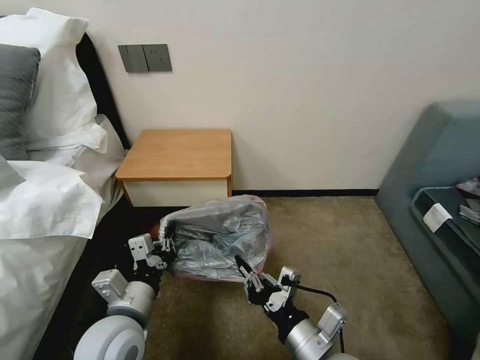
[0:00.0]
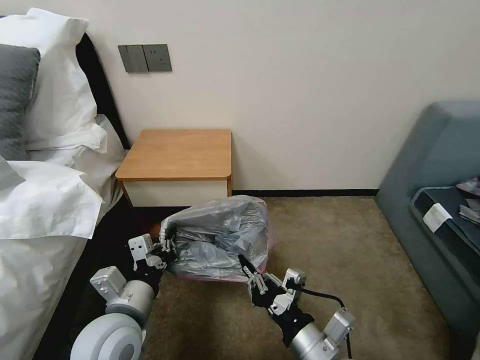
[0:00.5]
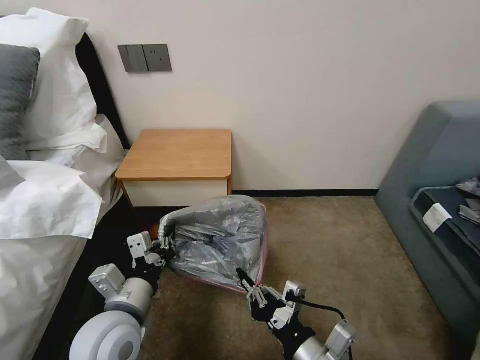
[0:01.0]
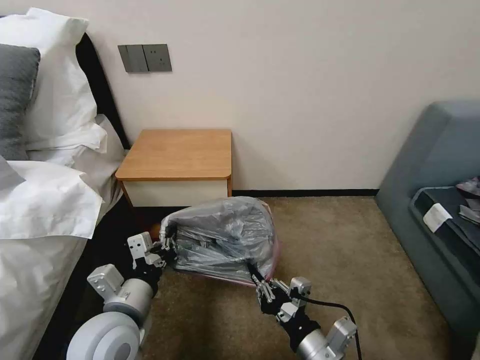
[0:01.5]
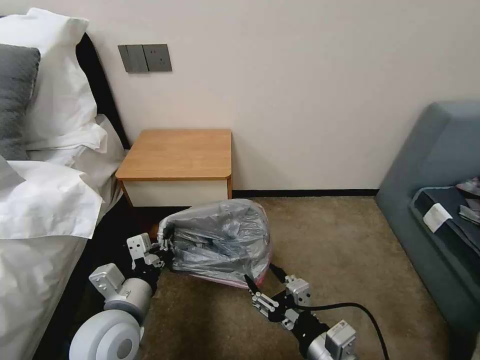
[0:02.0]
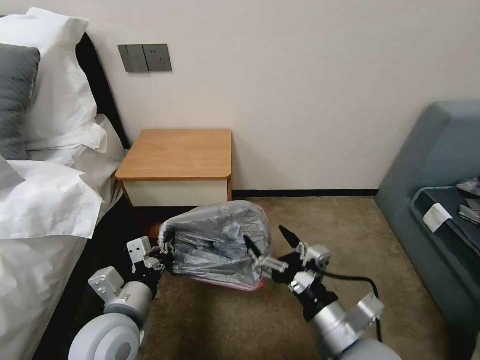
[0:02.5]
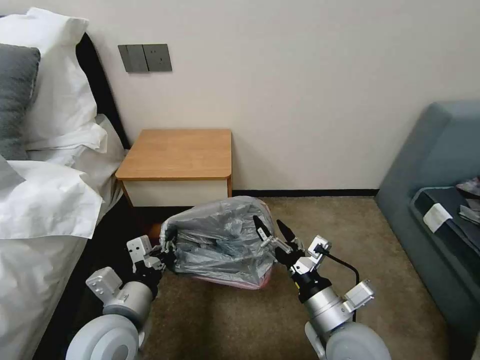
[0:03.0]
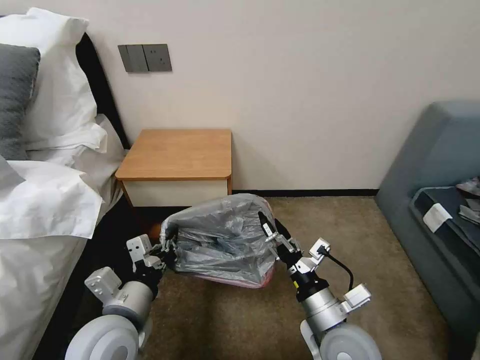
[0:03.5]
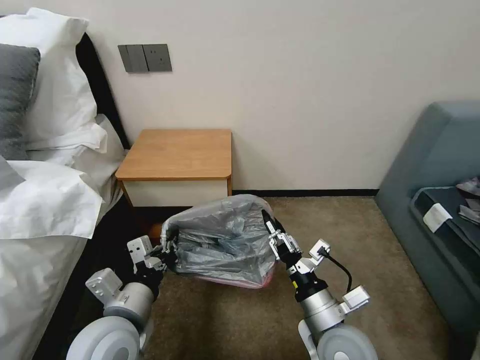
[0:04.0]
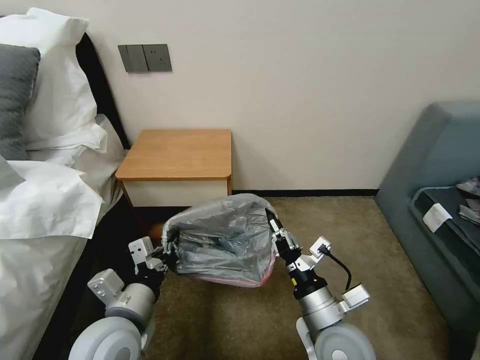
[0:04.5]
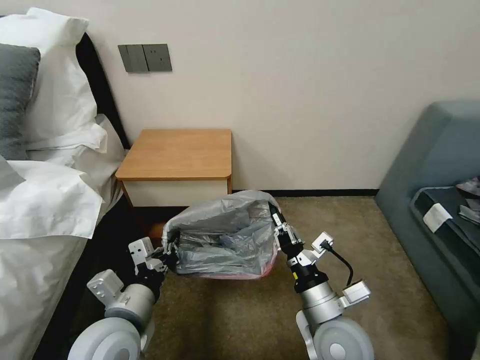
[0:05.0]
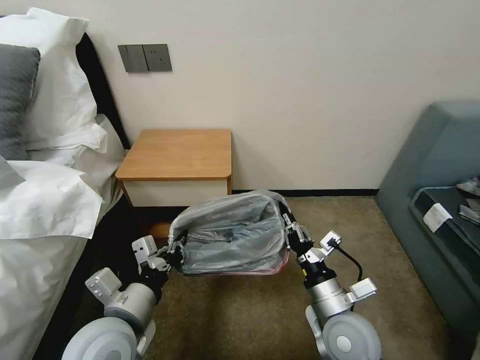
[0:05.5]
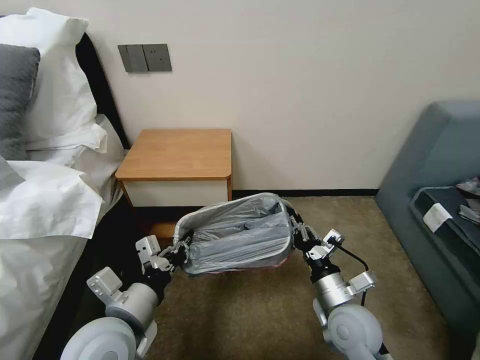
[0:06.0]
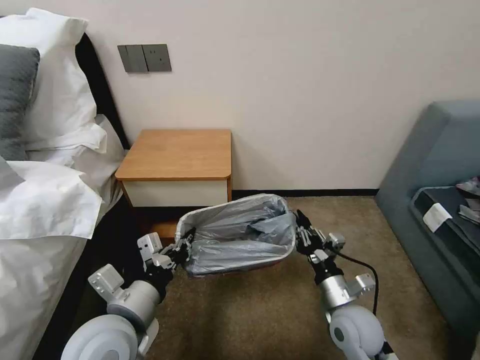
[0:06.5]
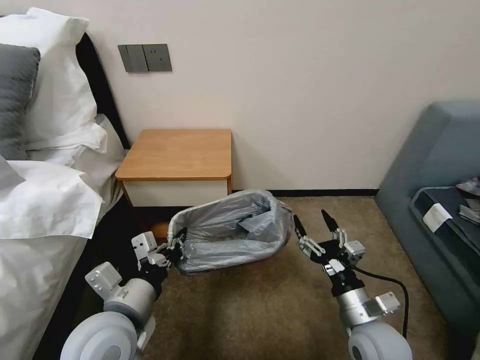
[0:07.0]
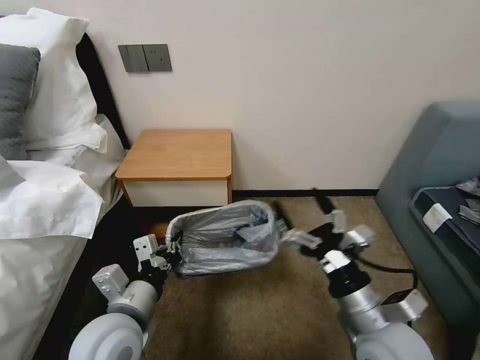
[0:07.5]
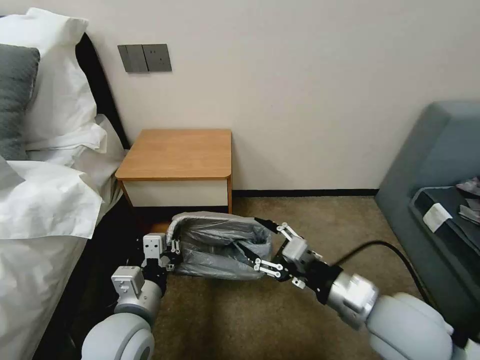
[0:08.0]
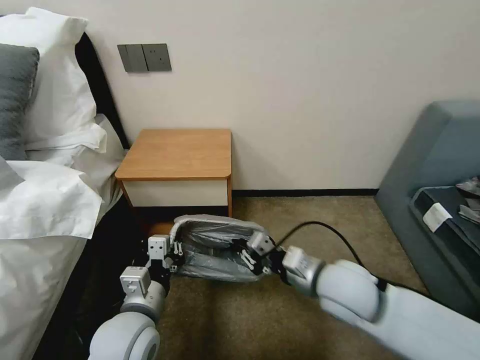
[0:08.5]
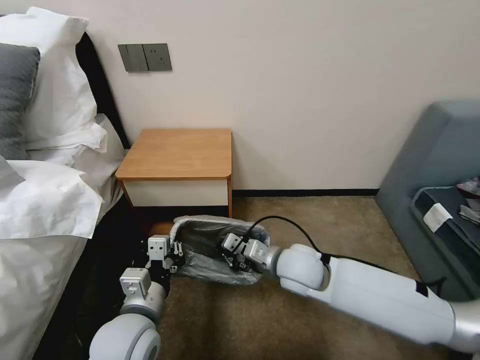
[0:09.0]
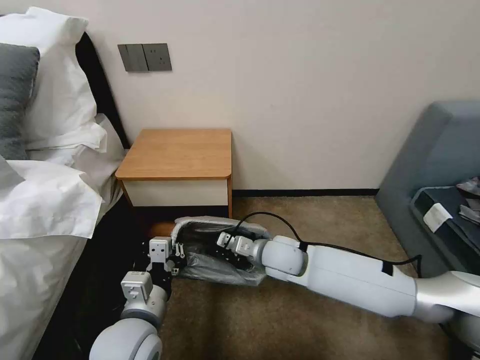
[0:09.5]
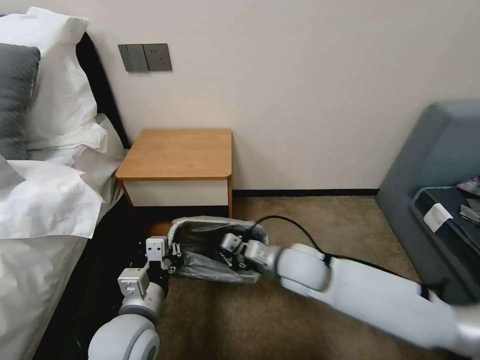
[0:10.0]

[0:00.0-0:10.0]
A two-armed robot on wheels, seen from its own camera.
Task of the whole recording: Pick up the garbage bag from the table and place it over the trash can.
0:00.0 to 0:02.0: The right gripper opens its fingers.
0:02.0 to 0:04.0: The right gripper moves forward, some 5 cm, and opens, then closes again.
0:04.0 to 0:06.0: The right gripper changes place by approximately 10 cm, and closes up.
0:06.0 to 0:08.0: The right gripper heads upward, covering about 15 cm, and opens.
0:08.0 to 0:10.0: The right gripper moves forward, to the left and downward, some 20 cm, and closes its fingers.

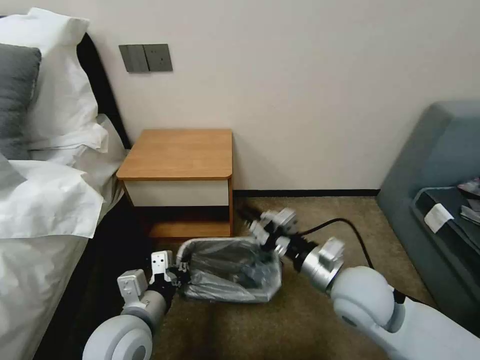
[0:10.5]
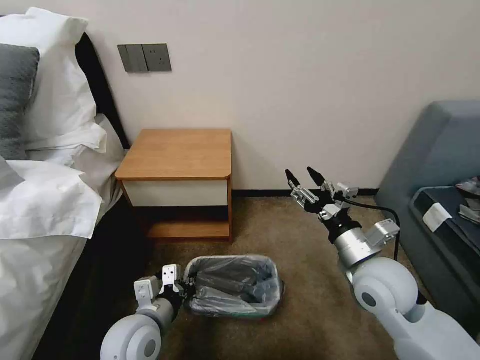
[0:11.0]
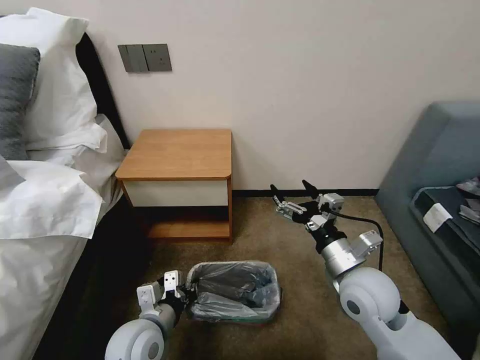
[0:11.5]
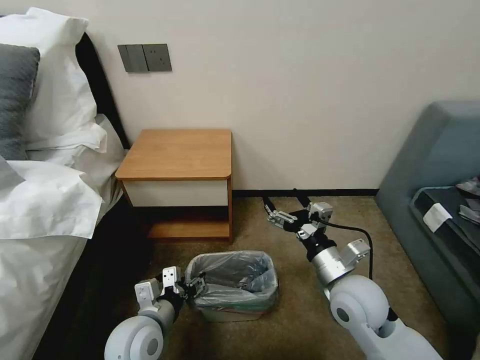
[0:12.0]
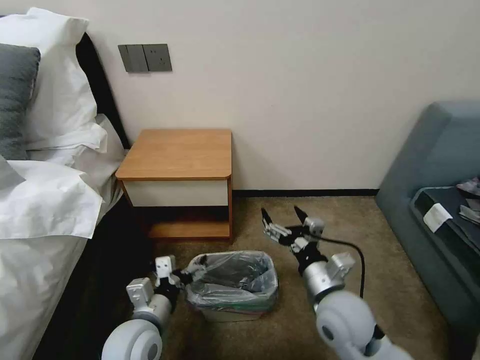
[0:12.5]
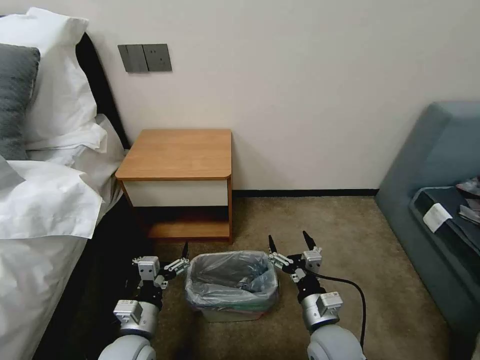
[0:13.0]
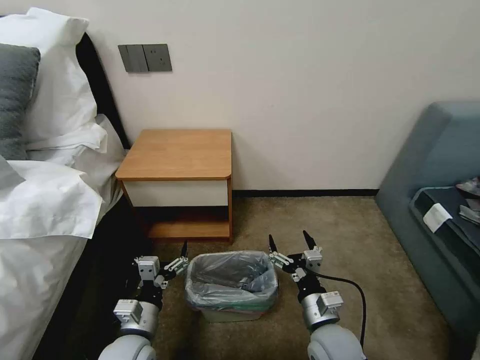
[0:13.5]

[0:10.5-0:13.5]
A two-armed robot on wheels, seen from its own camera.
Task of the whole recording: Pick up the garbage bag from the table and place it over the trash can.
0:10.5 to 0:12.0: The left gripper travels downward by roughly 5 cm, and opens up, while the right gripper opens its fingers.
0:12.0 to 0:13.5: The left gripper changes place by approximately 5 cm. The right gripper moves downward and backward, approximately 10 cm.

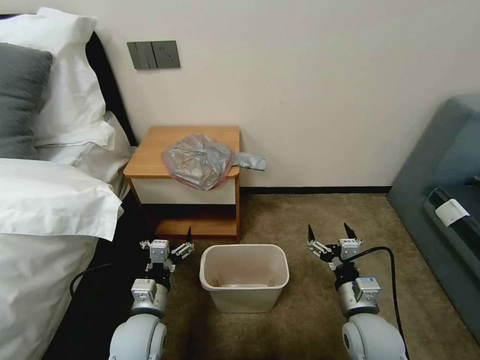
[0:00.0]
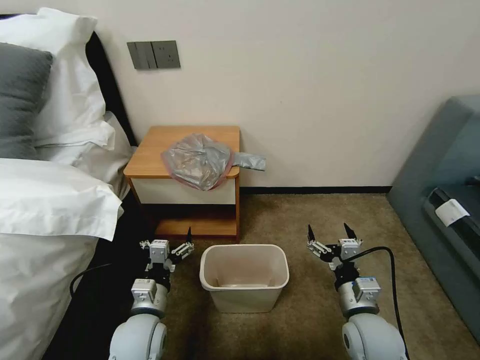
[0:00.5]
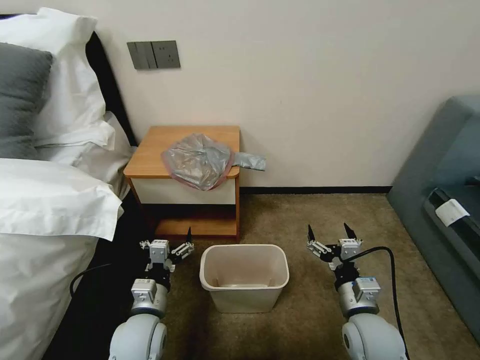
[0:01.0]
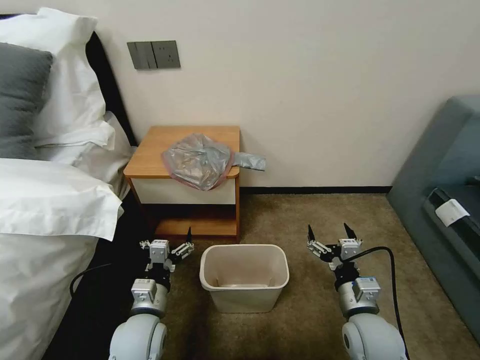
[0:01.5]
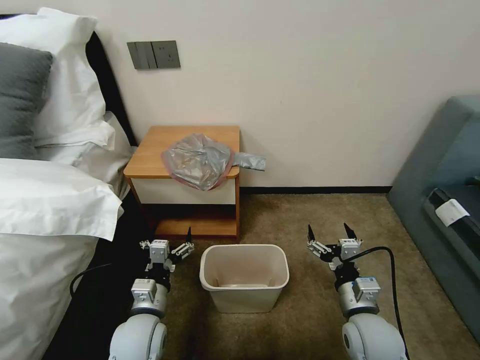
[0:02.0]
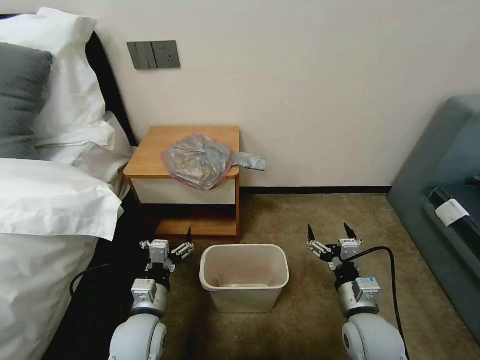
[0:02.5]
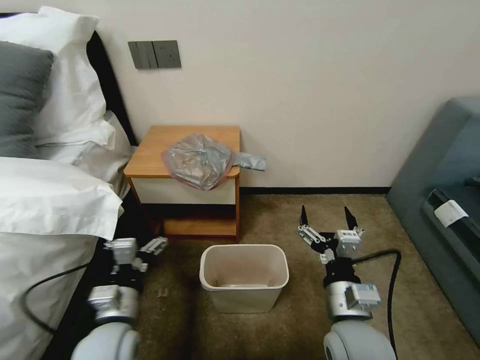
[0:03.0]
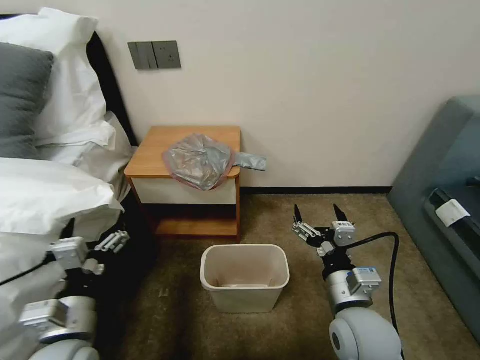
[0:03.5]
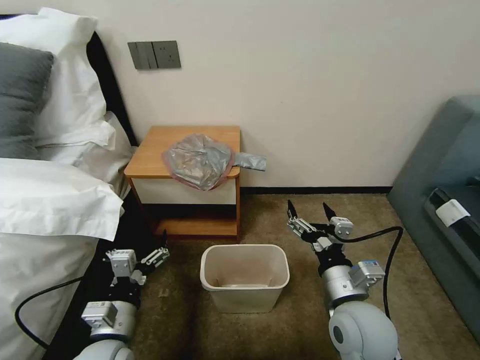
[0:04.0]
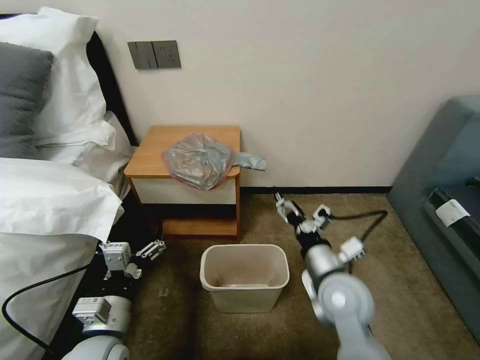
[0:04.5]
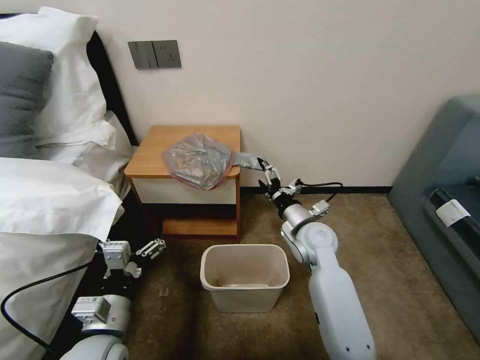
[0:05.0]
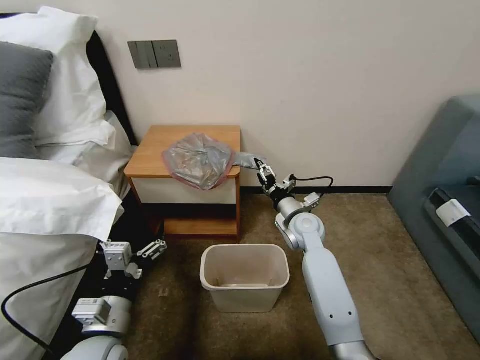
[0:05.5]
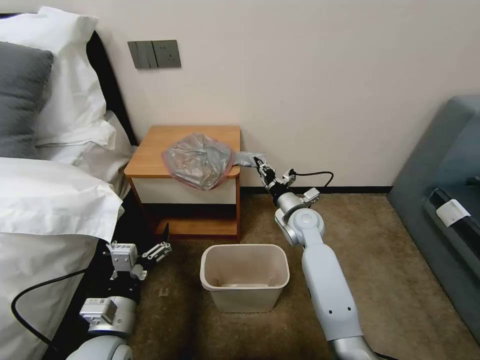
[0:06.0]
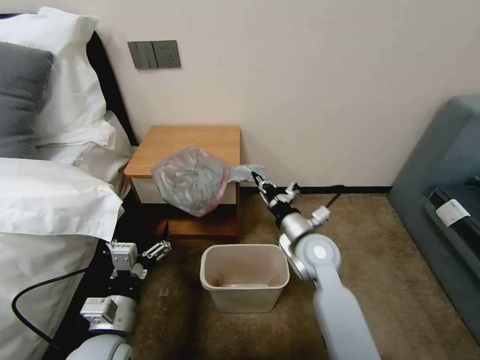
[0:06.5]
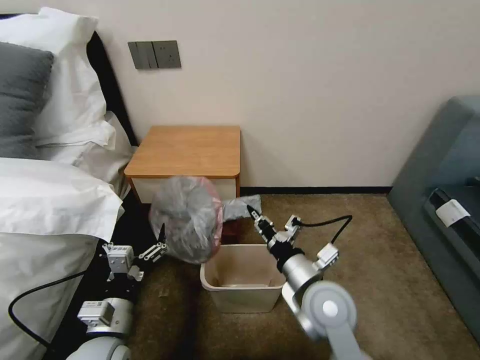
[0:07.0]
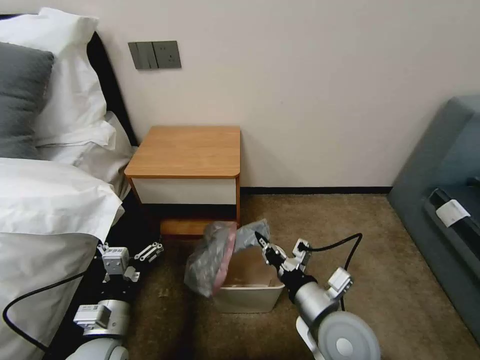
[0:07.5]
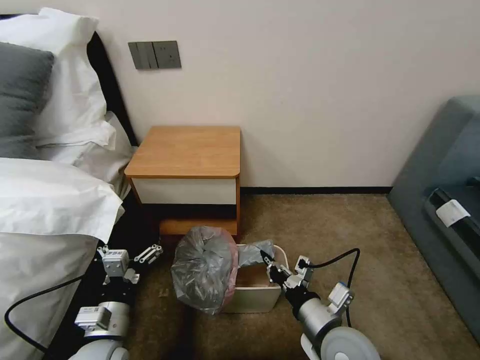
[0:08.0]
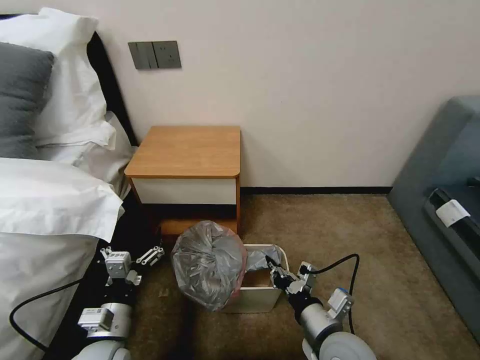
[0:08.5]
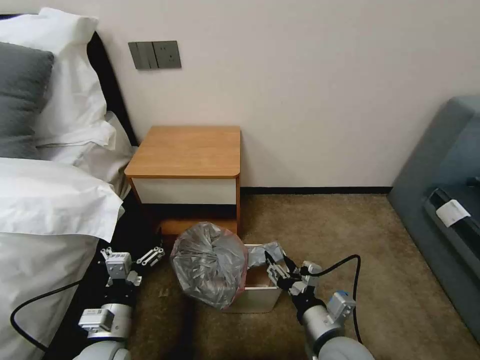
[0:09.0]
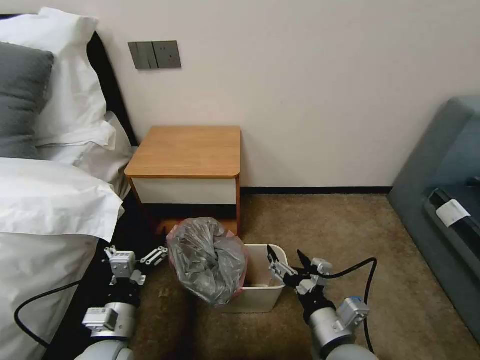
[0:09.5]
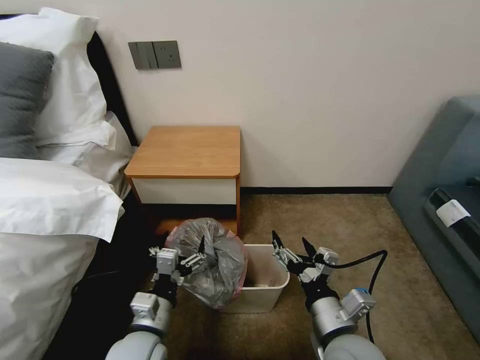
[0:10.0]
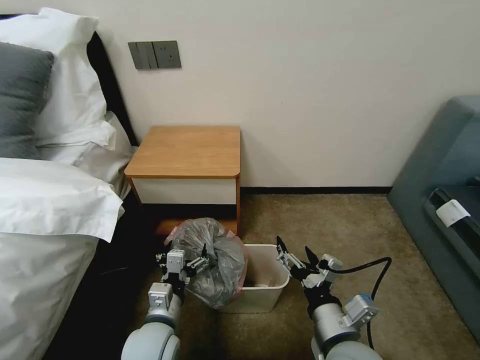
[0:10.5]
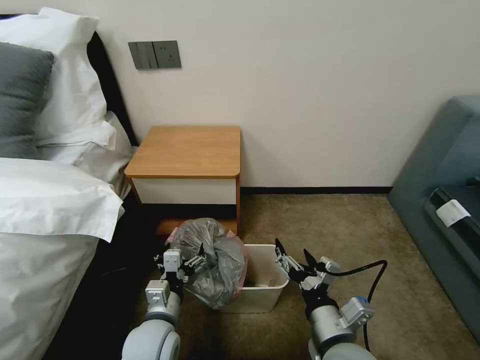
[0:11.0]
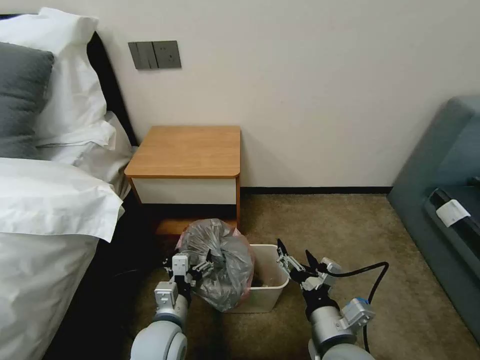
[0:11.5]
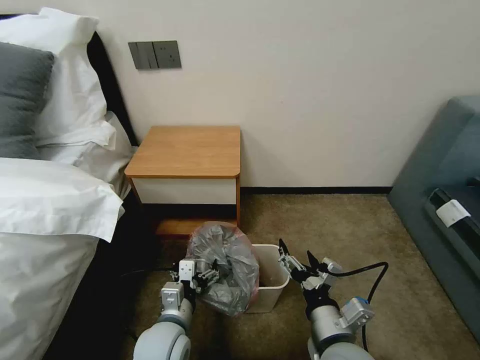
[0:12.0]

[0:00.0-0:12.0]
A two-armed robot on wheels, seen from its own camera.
Task of the whole recording: Pick up the garbage bag from the table and place it over the trash can.
0:02.0 to 0:04.0: The left gripper is displaced backward by approximately 5 cm. The right gripper moves upward and to the left, approximately 10 cm.
0:04.0 to 0:06.0: The right gripper heads forward, covering some 25 cm, and closes.
0:06.0 to 0:08.0: The right gripper is displaced backward by about 30 cm.
0:08.0 to 0:10.0: The right gripper opens. The left gripper goes some 5 cm to the right.
